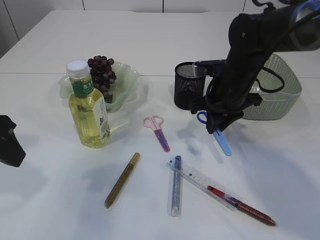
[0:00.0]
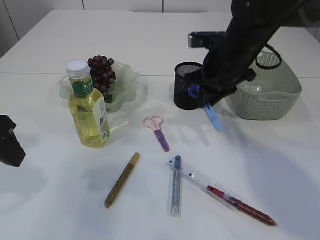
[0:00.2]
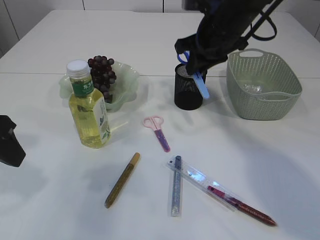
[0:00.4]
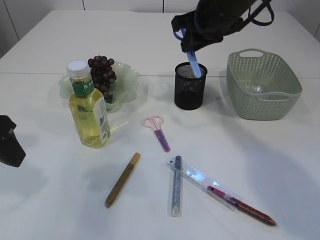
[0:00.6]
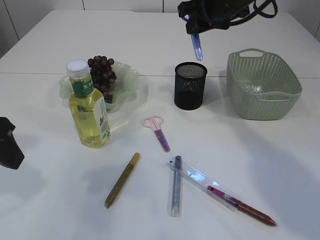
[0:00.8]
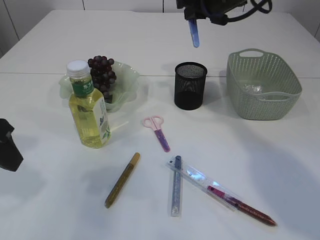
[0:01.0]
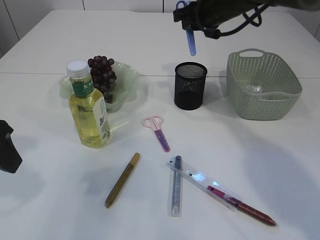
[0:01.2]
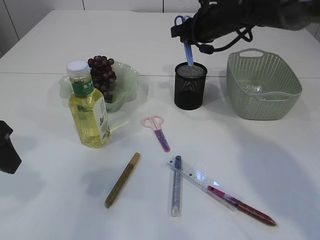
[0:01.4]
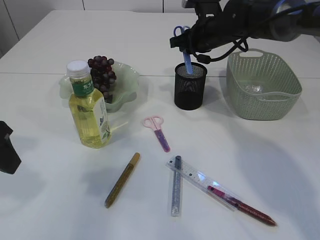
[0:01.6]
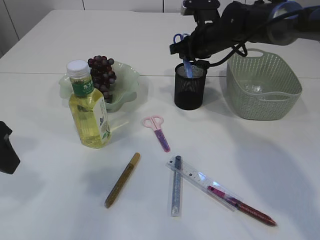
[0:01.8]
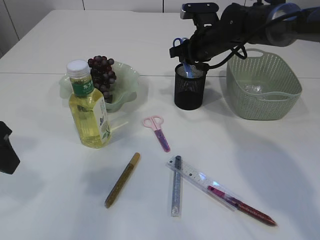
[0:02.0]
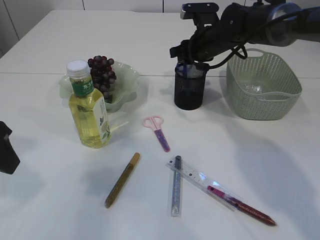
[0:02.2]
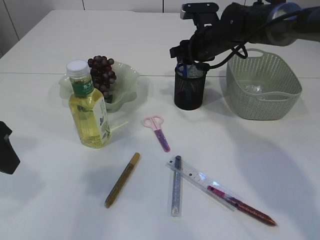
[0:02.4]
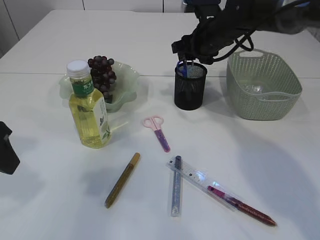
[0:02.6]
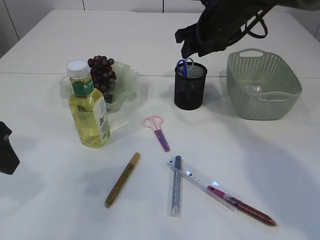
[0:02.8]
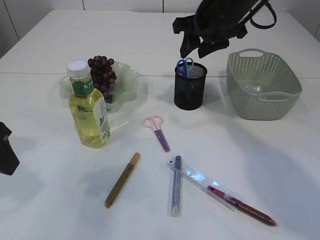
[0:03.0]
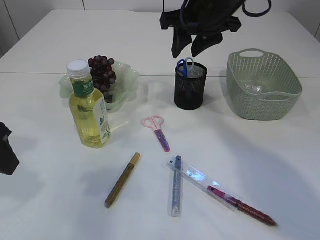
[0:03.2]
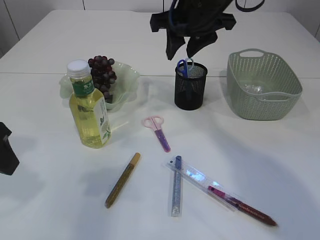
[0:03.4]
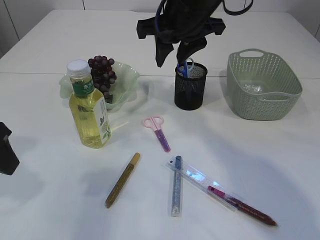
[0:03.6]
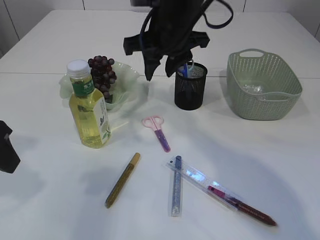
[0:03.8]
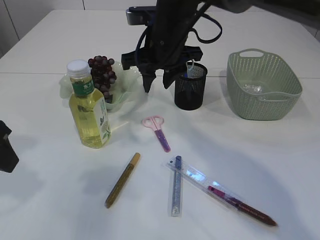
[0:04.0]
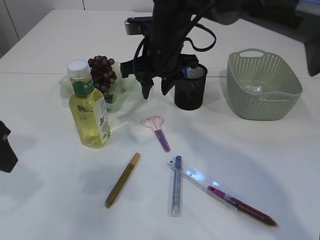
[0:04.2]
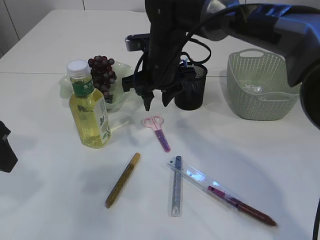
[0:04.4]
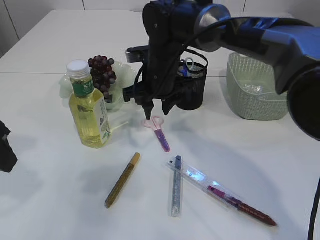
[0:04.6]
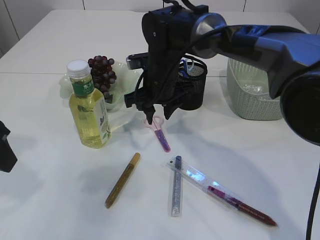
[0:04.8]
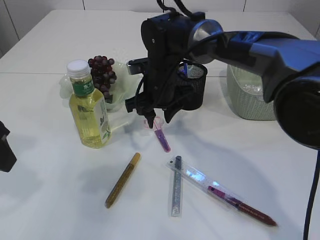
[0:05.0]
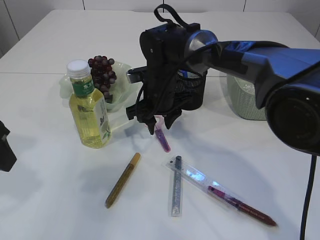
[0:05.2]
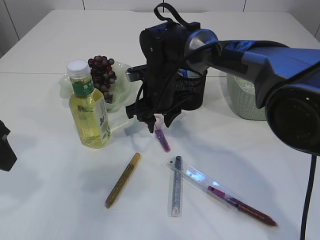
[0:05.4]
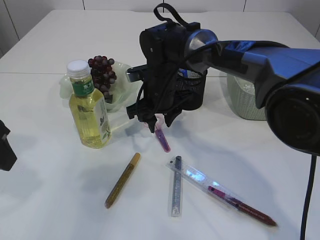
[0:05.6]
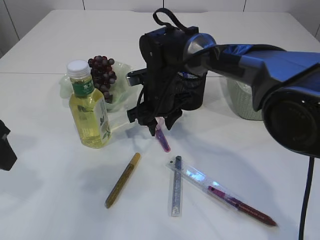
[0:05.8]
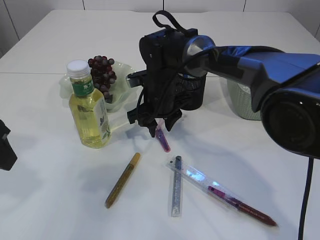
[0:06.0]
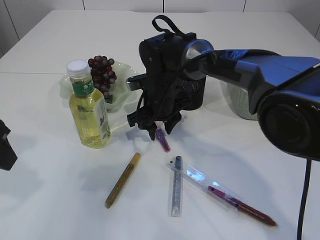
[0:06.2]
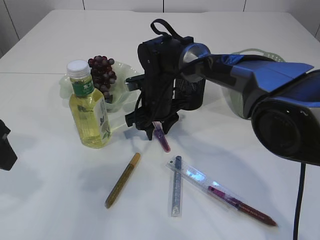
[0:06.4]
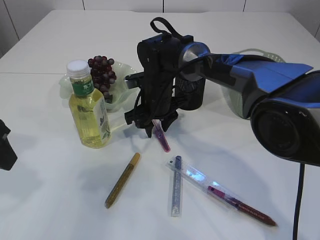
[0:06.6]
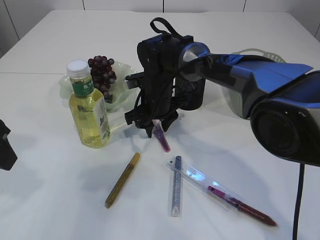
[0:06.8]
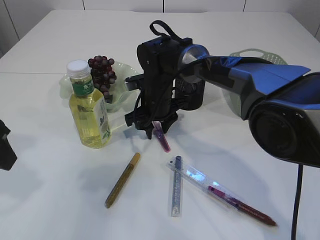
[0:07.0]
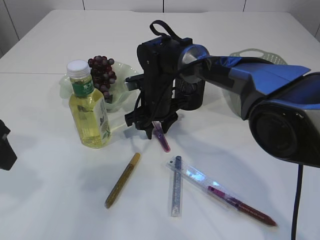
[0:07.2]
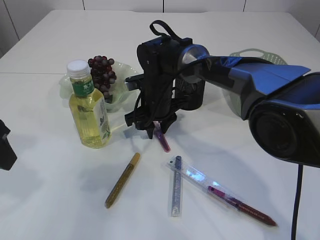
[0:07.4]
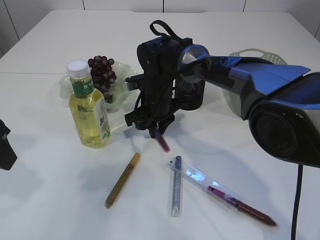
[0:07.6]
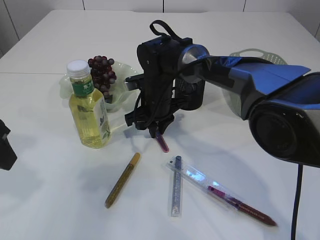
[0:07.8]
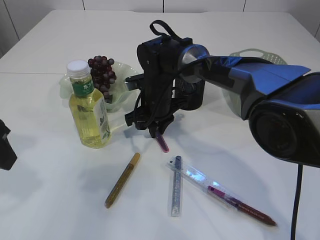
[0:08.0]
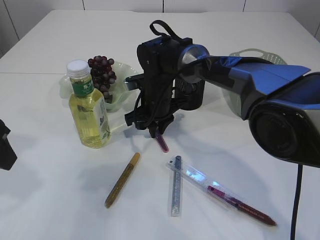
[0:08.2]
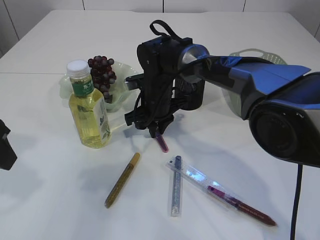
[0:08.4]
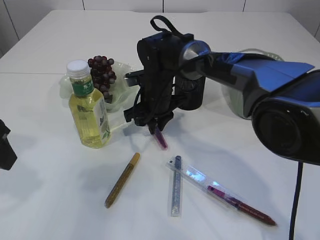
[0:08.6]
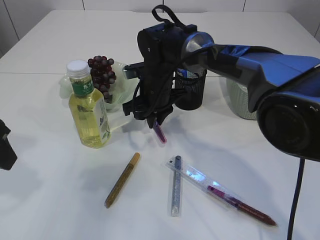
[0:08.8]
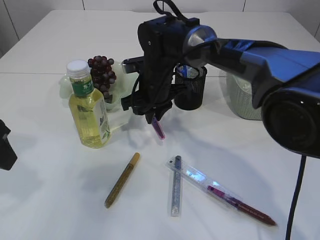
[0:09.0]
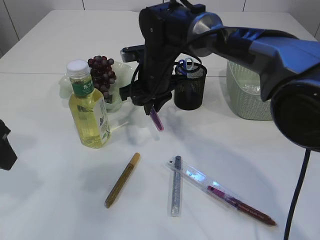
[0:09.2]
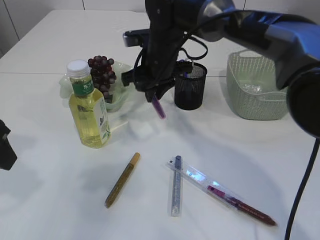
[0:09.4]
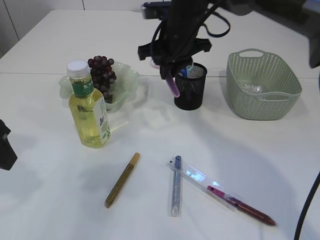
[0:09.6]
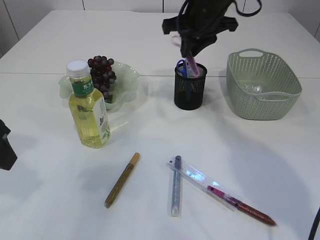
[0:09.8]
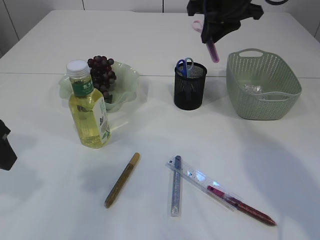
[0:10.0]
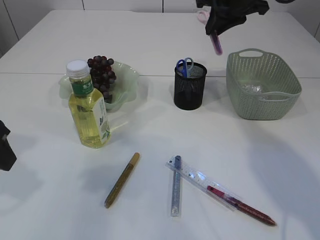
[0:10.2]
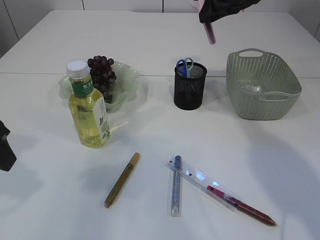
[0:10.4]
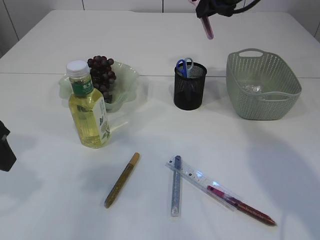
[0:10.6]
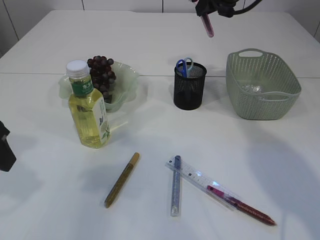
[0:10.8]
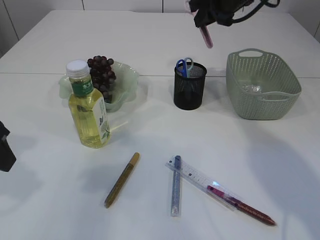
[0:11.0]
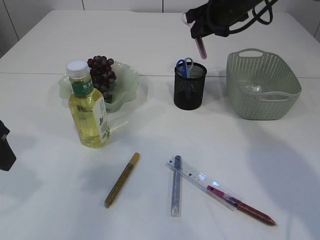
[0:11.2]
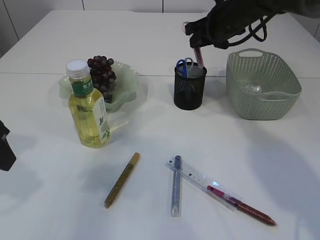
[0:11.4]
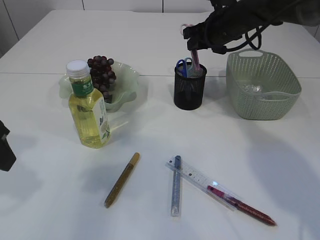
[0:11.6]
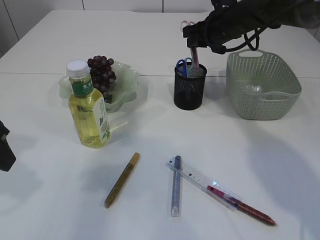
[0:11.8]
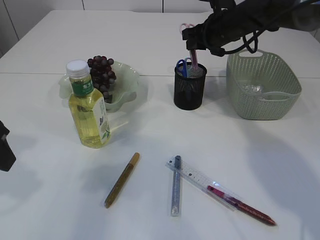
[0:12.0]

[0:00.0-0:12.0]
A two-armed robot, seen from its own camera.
Step, 0:00.0 to 0:02.8: Place the blue scissors into the pen holder.
Step, 0:03.0 to 0:09.4: pick up the pink scissors.
0:00.0 to 0:01.6: The right gripper heads forward, covering some 10 cm, and moves about 15 cm upward and comes back.
0:01.6 to 0:03.0: The right gripper shifts approximately 10 cm upward and backward, and opens up.
0:03.0 to 0:04.4: The right gripper moves to the left and downward, about 15 cm.
0:04.4 to 0:06.0: The right gripper shifts about 5 cm downward.
0:06.0 to 0:09.0: The grippers make only small movements.
0:09.0 to 0:10.4: The right gripper moves upward and to the right, about 25 cm.
0:10.4 to 0:12.0: The right gripper moves downward, some 10 cm.

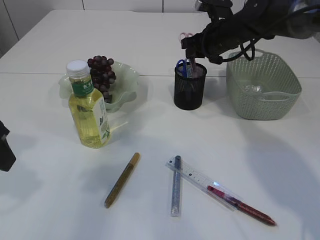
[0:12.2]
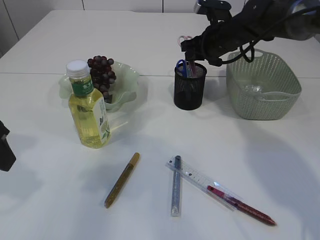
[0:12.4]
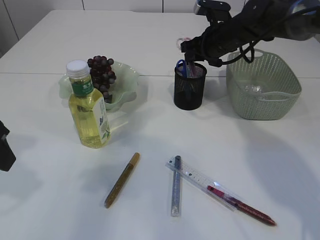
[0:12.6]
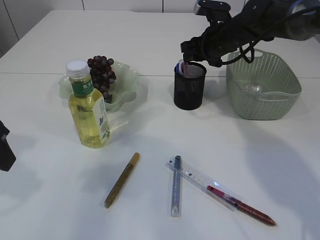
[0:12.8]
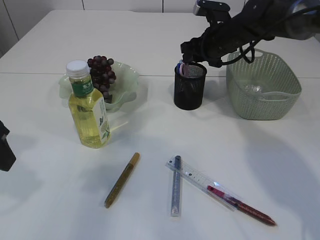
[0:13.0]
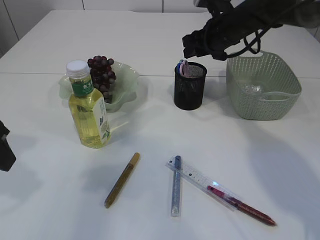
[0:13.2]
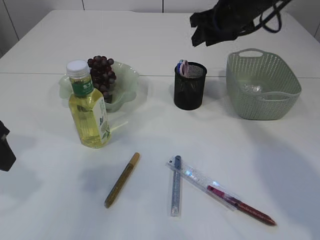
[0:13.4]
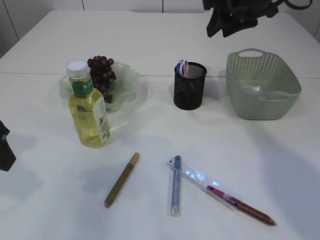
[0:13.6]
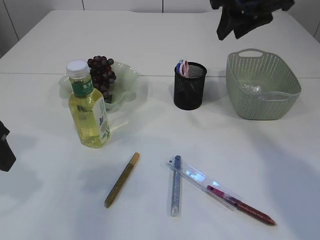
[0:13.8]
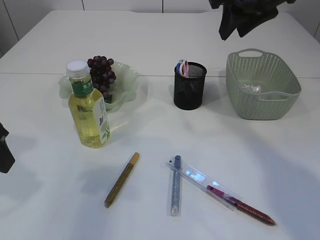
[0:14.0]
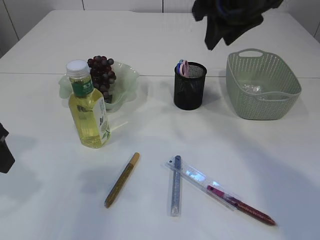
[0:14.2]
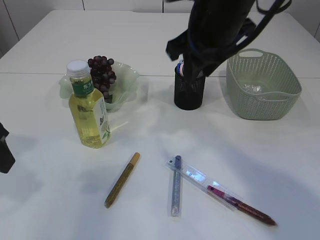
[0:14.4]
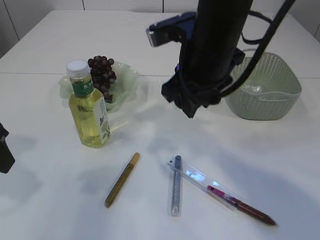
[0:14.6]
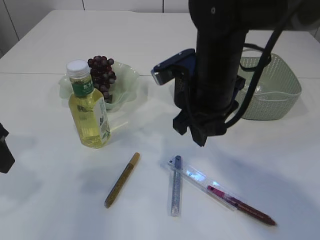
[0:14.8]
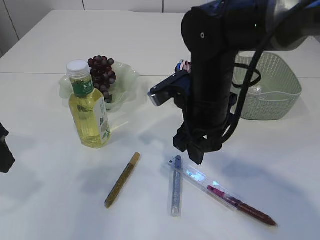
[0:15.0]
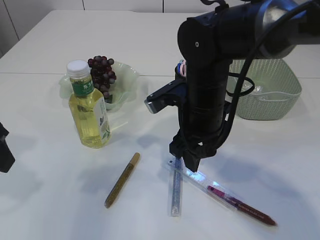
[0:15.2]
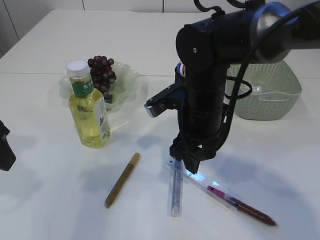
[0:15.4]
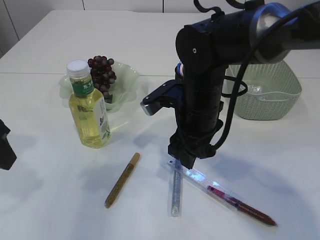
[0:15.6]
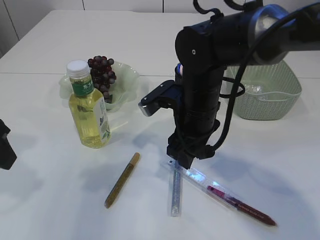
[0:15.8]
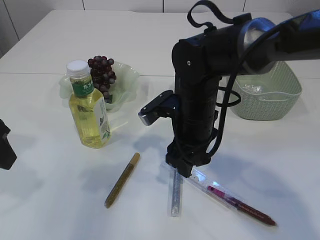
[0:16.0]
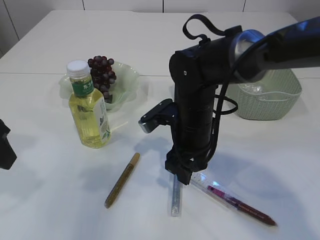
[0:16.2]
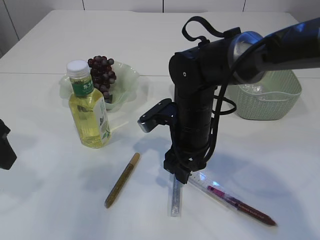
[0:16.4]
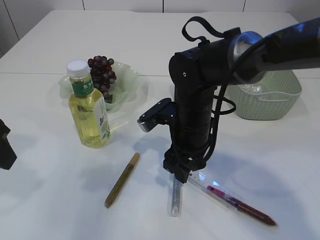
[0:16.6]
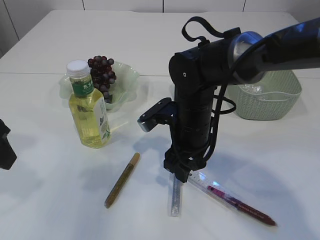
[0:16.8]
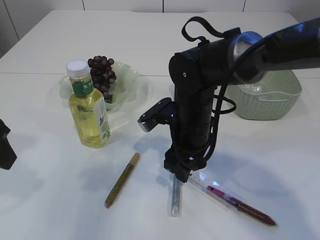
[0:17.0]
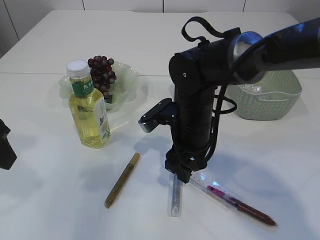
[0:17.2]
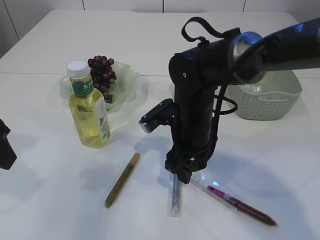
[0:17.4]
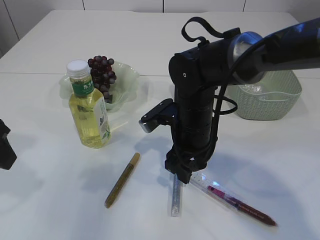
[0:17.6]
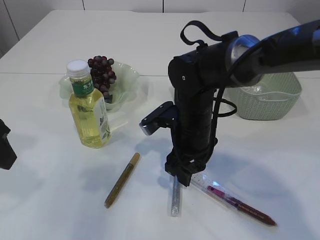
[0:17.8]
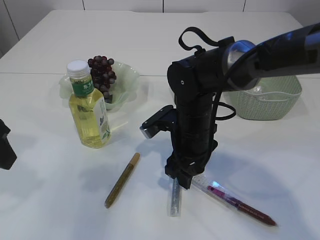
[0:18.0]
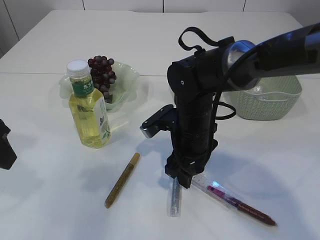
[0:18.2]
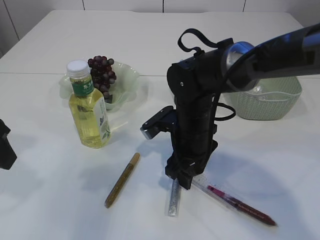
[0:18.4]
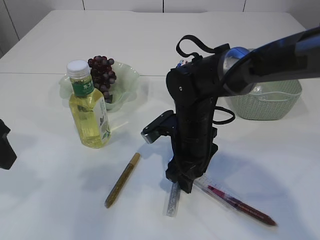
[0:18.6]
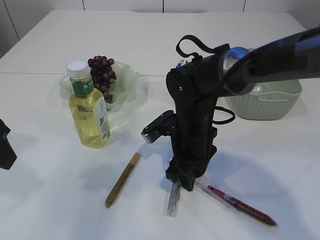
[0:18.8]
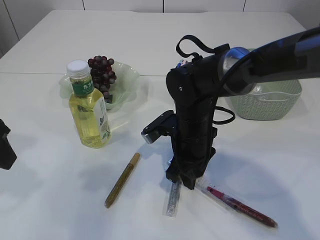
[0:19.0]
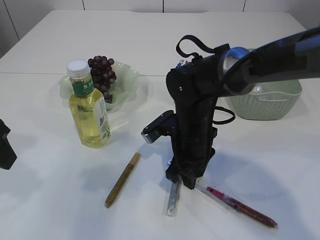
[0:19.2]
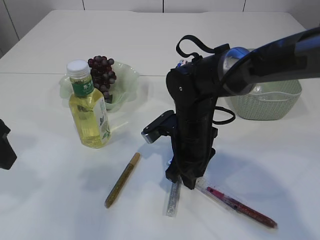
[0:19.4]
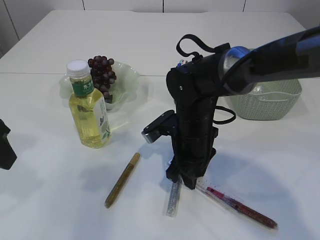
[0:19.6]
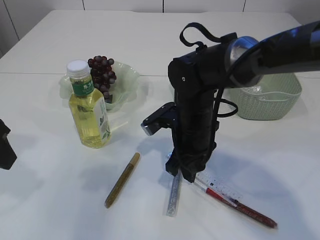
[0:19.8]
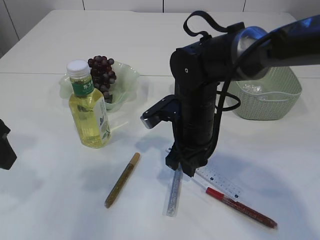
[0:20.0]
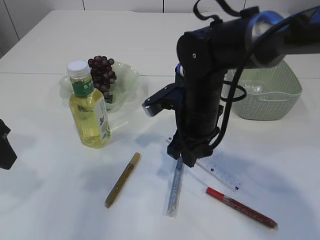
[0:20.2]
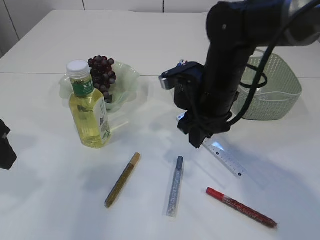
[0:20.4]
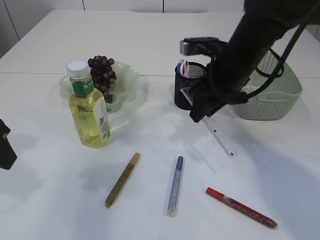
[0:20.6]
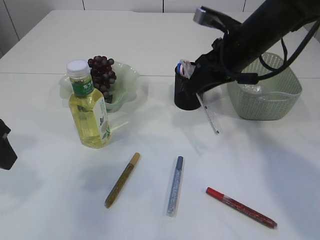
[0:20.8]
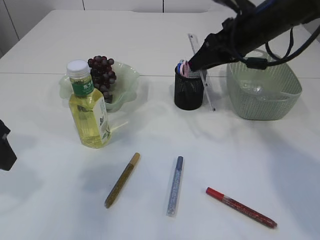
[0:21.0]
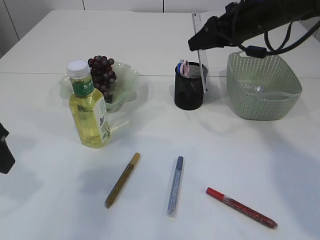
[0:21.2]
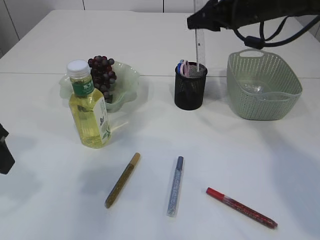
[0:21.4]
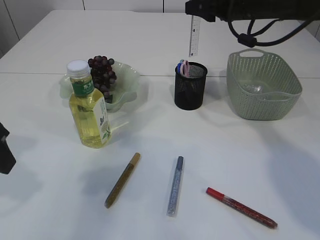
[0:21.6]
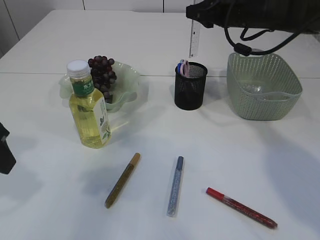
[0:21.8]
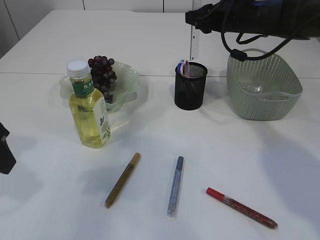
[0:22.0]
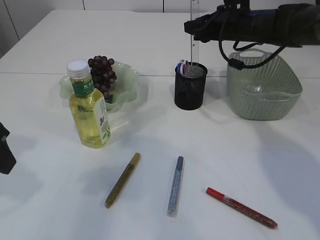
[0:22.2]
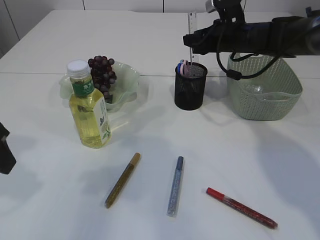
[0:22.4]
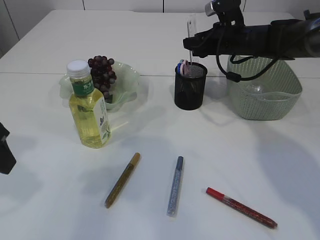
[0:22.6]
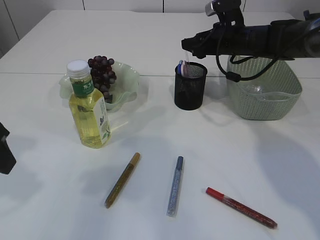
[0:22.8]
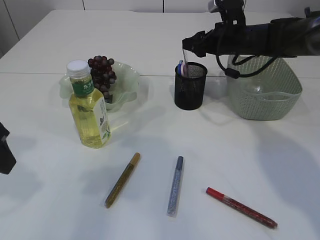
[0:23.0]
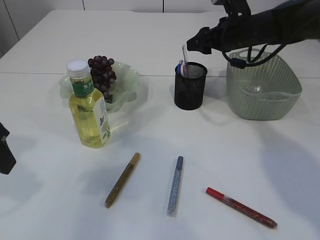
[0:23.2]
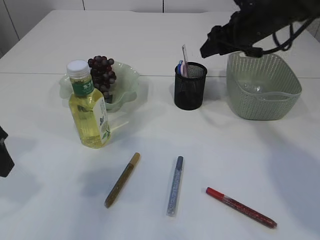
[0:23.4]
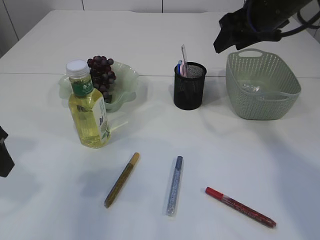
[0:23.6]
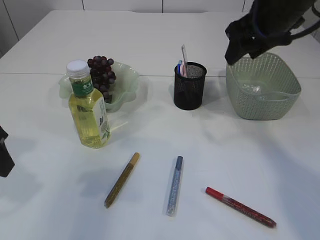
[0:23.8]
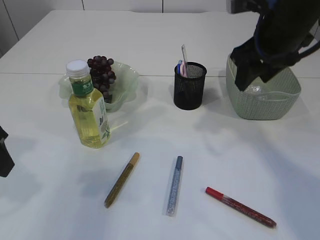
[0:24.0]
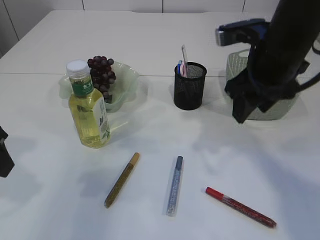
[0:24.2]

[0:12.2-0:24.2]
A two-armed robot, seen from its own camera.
Step, 0:13.6 to 0:20.2: pick up the ruler.
Step, 0:20.4 to 0:23.4: Place the ruler into the pen holder.
0:12.2 to 0:13.8: The right gripper heads upward and backward, covering some 15 cm.
0:13.8 to 0:15.2: The right gripper is displaced downward, to the left and backward by roughly 20 cm.
0:15.2 to 0:16.6: The right gripper shifts by about 5 cm.
0:16.6 to 0:18.2: Both grippers stay about where they are.
0:18.2 to 0:19.8: The right gripper closes its fingers.
0:19.8 to 0:21.2: The right gripper moves upward, to the right and forward, some 20 cm.
0:21.2 to 0:22.6: The right gripper travels downward and forward by approximately 10 cm.
0:22.6 to 0:24.2: The right gripper travels backward by about 20 cm.
